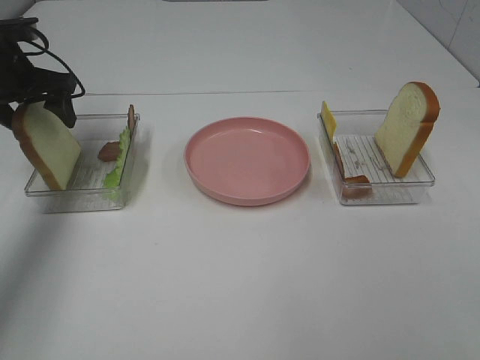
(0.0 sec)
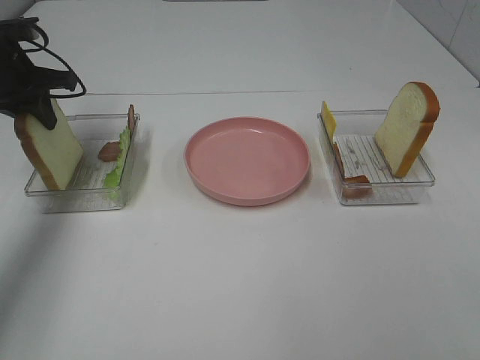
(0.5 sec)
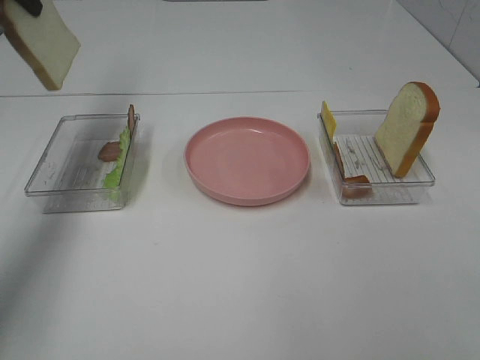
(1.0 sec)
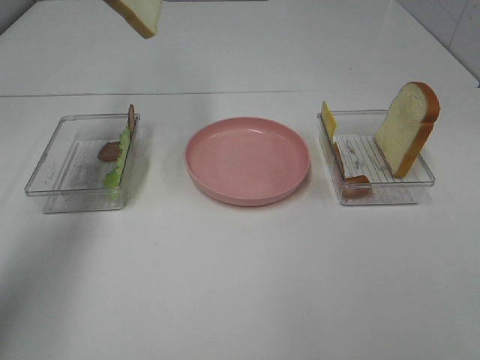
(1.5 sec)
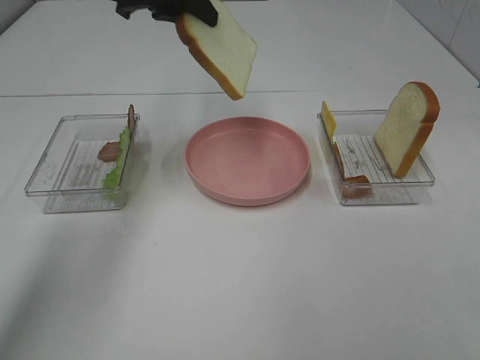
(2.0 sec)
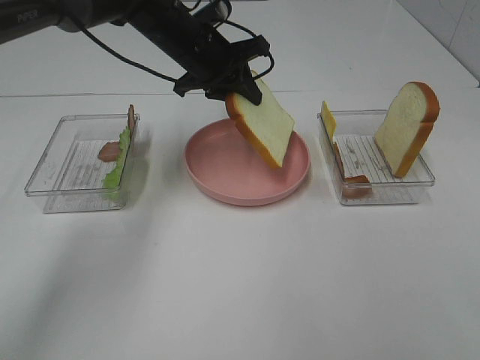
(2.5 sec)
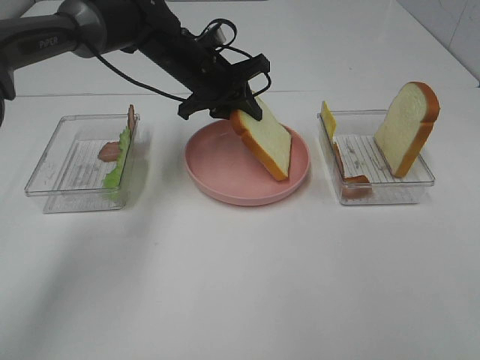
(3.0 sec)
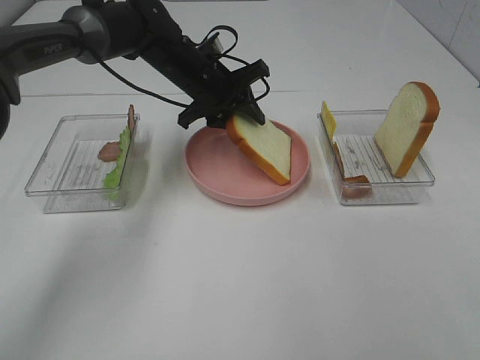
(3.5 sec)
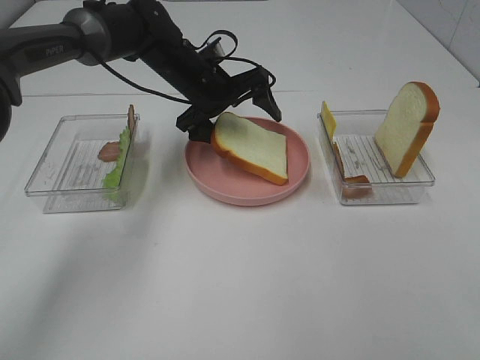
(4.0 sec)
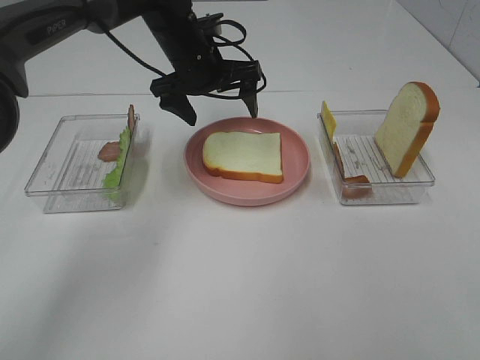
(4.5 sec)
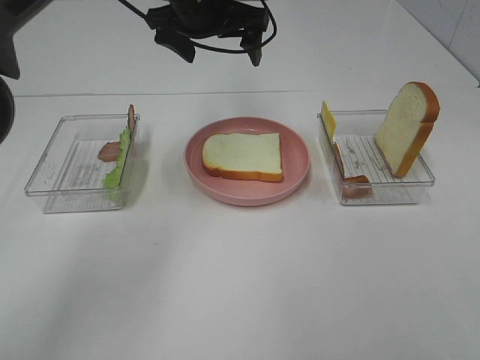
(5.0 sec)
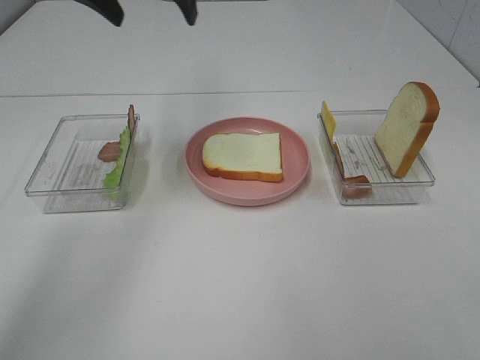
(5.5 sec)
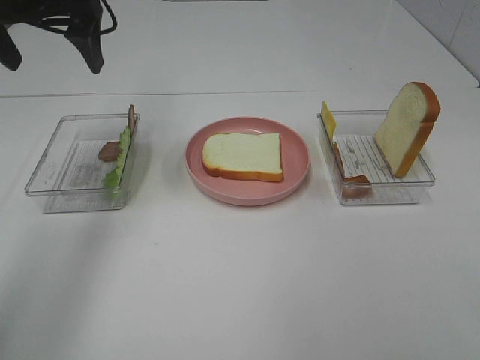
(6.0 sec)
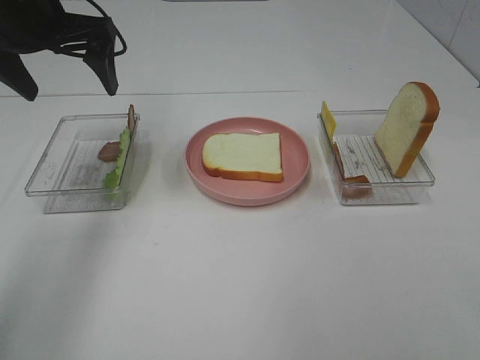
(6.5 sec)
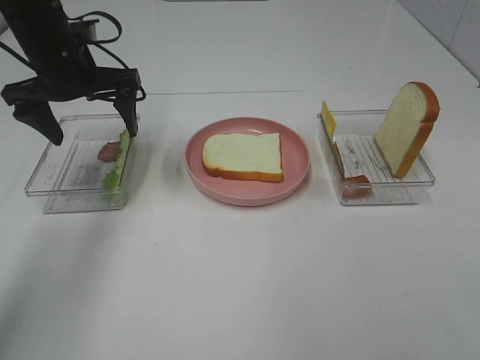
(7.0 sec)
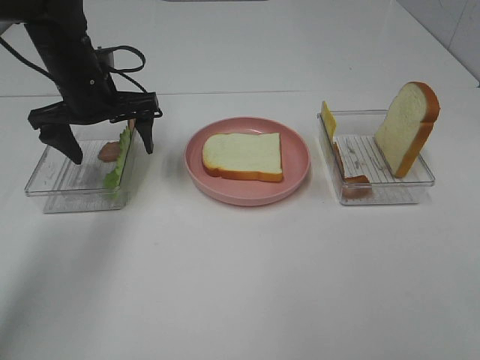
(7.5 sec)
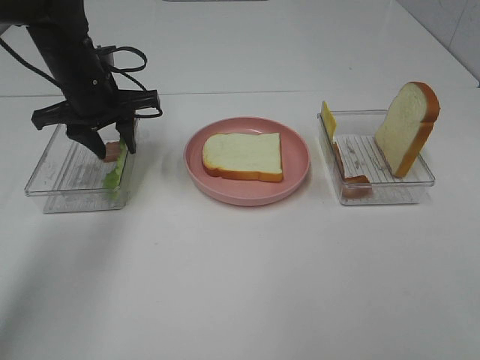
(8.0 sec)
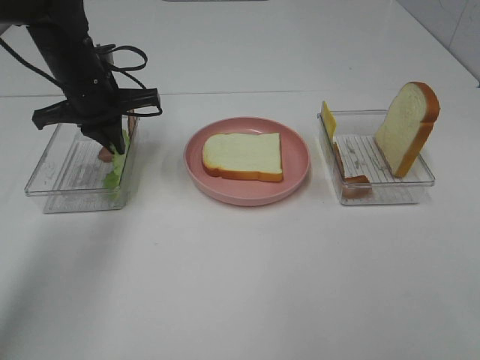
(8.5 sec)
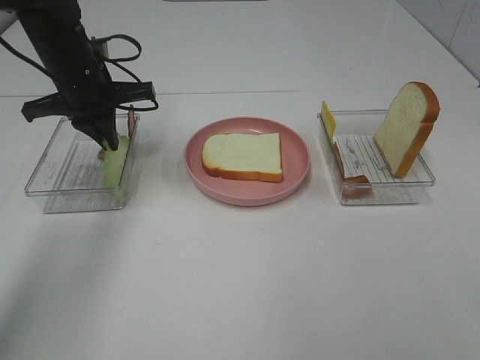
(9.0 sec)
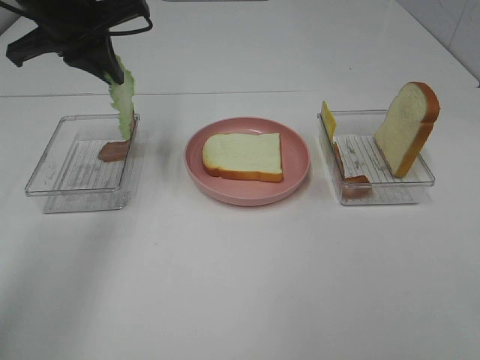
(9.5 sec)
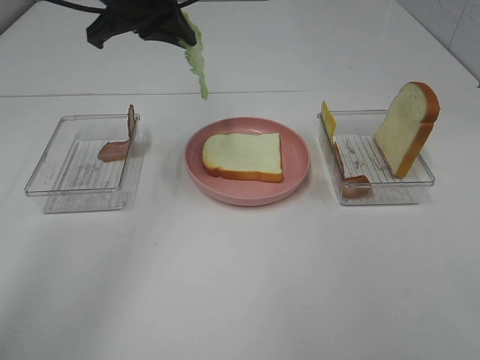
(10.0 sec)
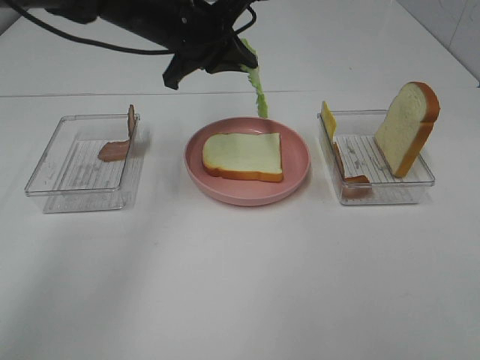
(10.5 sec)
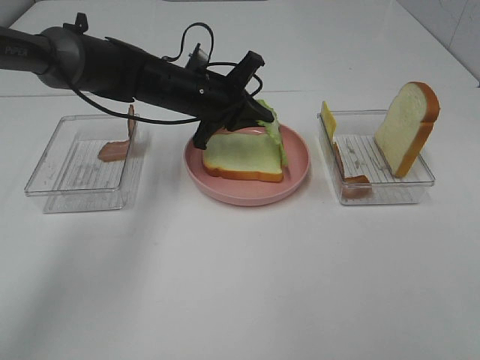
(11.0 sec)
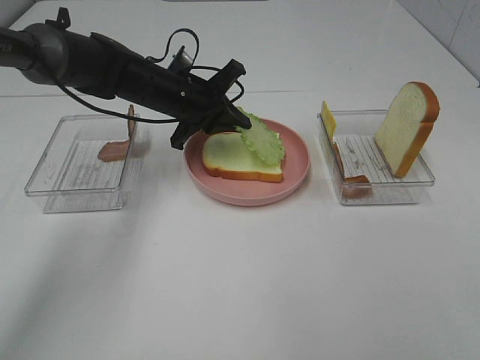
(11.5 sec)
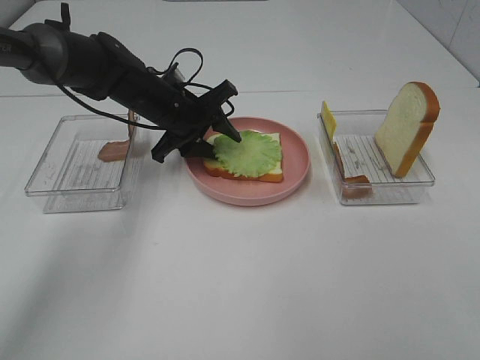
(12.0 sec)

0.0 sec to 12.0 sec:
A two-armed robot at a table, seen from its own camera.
Task of the whole recording: Make sandwiches.
Step, 1.0 sec to 4.0 sec: Left hand:place the bread slice on the plate.
Step, 4.5 sec to 9.0 sec: Left hand:grab the lettuce slice.
0.0 sec to 2.0 sec: The left gripper is displaced to the right and upward by approximately 20 cm, and closes up.
2.0 sec to 4.0 sec: The left gripper is displaced downward by about 15 cm, and opens.
4.0 sec to 6.0 sec: The left gripper is displaced upward, to the left and backward by approximately 25 cm.
6.0 sec to 8.0 sec: The left gripper is displaced downward by about 15 cm, and closes up.
8.0 sec to 10.0 sec: The left gripper goes roughly 15 cm upward and to the right, and closes.
10.0 sec to 12.0 sec: The left gripper travels downward by about 20 cm, and opens.

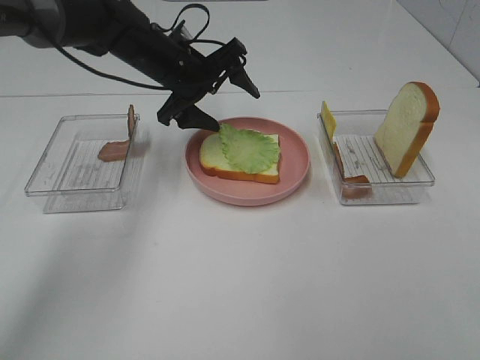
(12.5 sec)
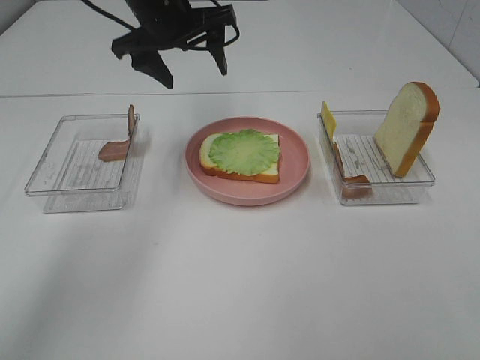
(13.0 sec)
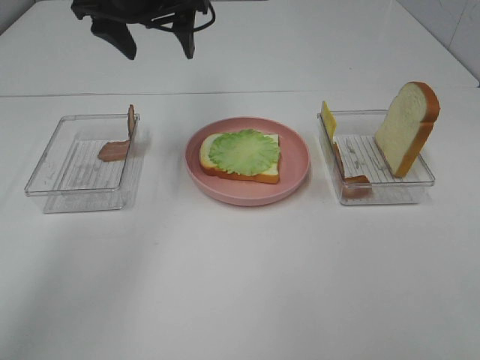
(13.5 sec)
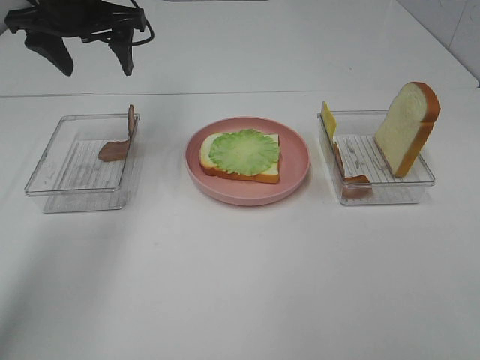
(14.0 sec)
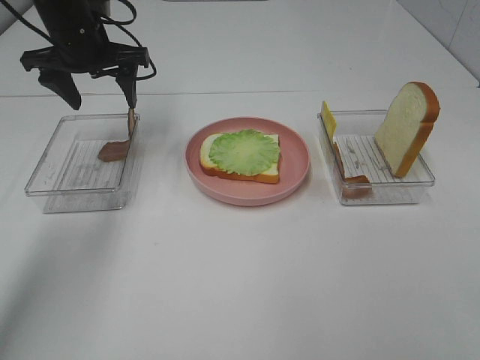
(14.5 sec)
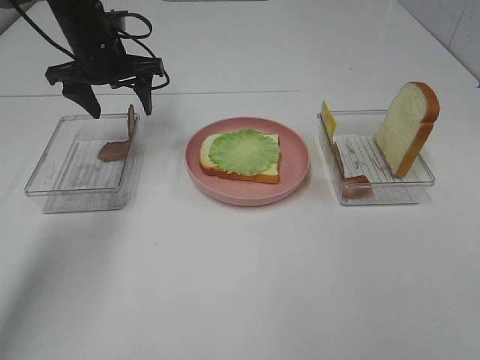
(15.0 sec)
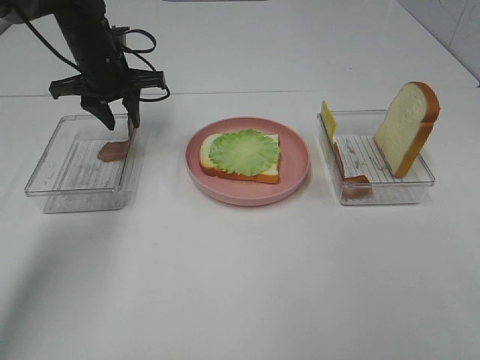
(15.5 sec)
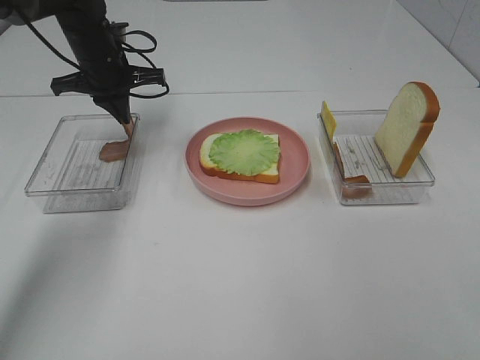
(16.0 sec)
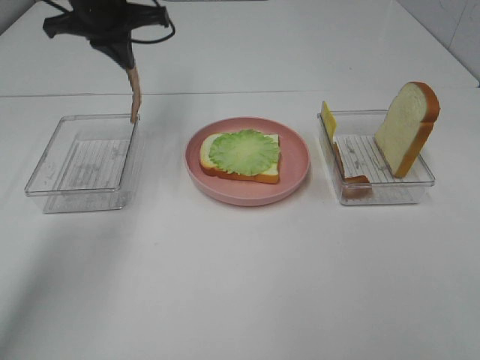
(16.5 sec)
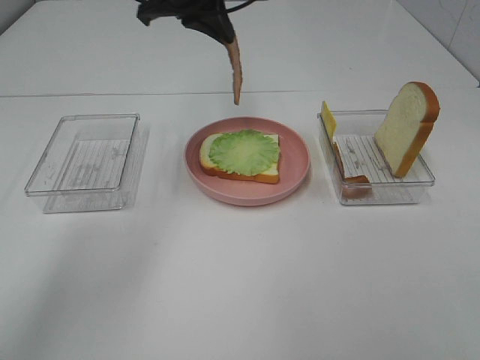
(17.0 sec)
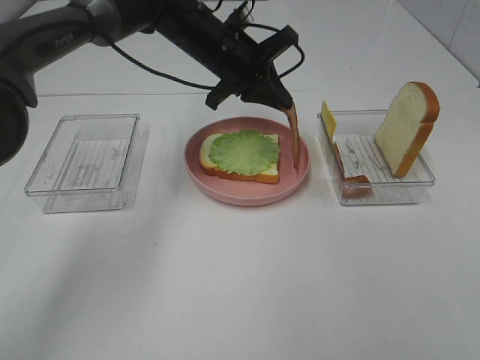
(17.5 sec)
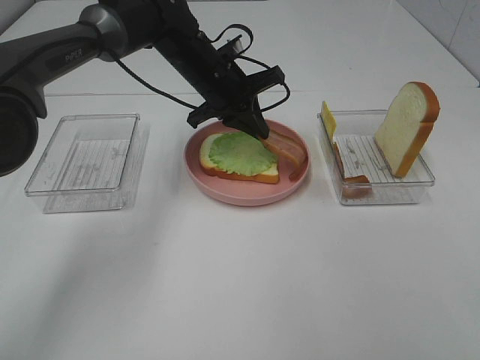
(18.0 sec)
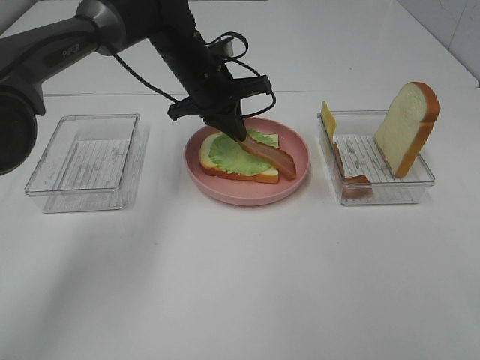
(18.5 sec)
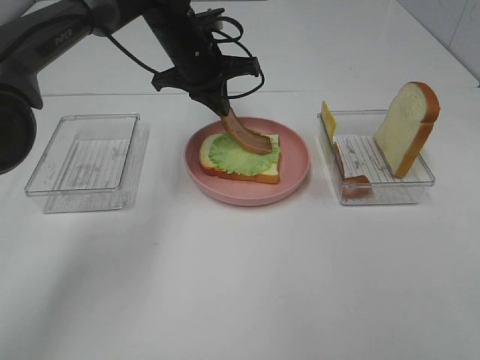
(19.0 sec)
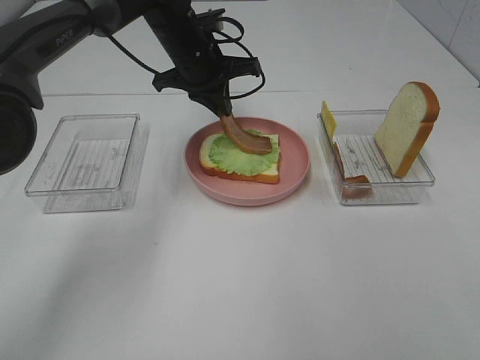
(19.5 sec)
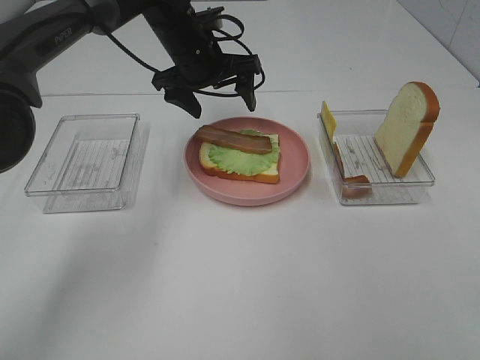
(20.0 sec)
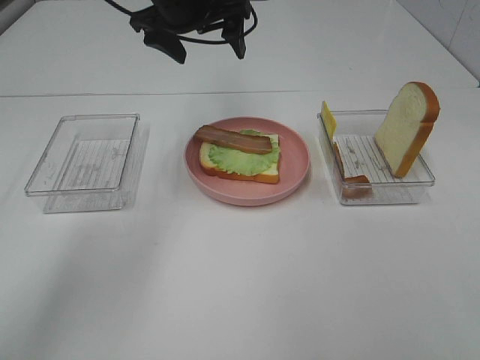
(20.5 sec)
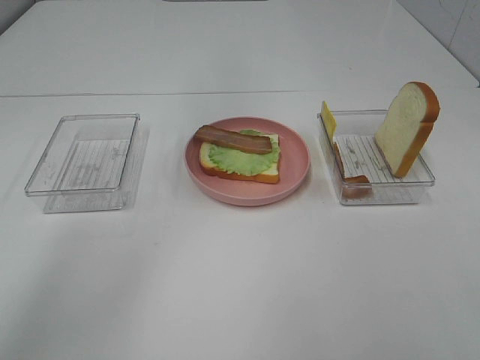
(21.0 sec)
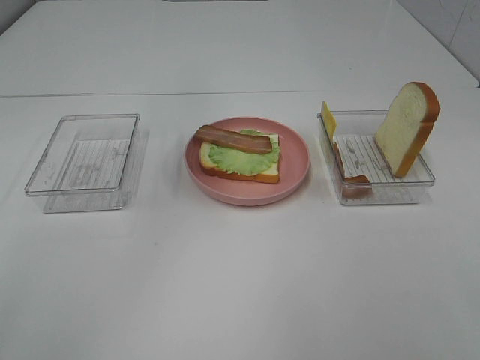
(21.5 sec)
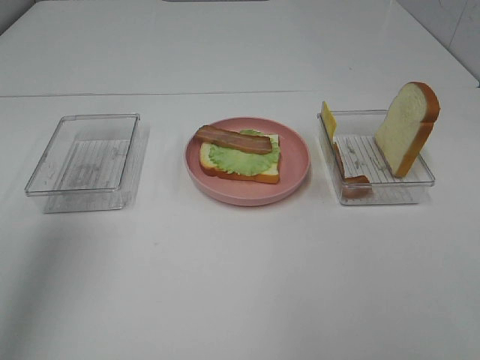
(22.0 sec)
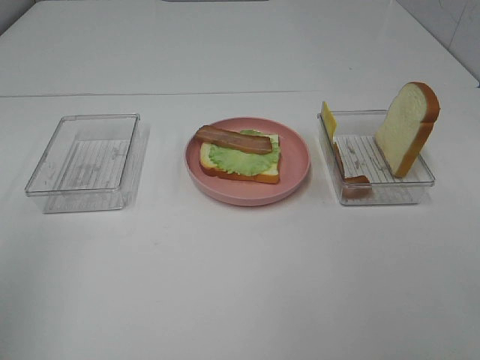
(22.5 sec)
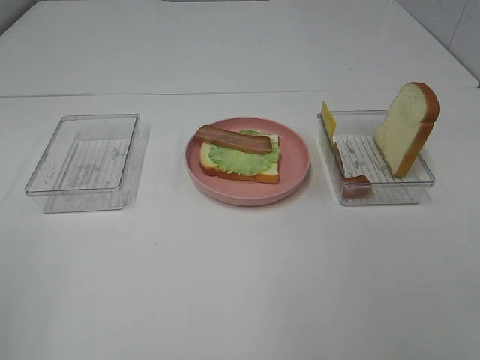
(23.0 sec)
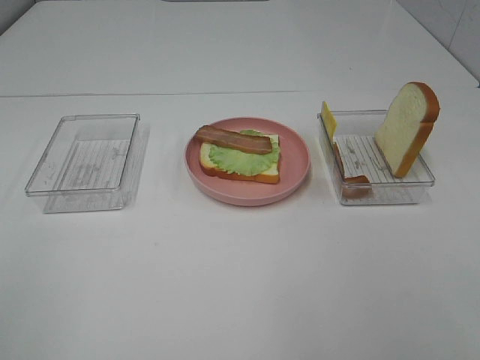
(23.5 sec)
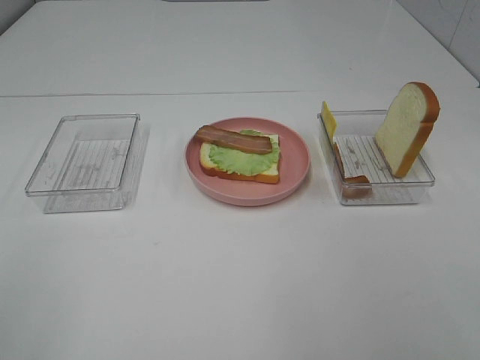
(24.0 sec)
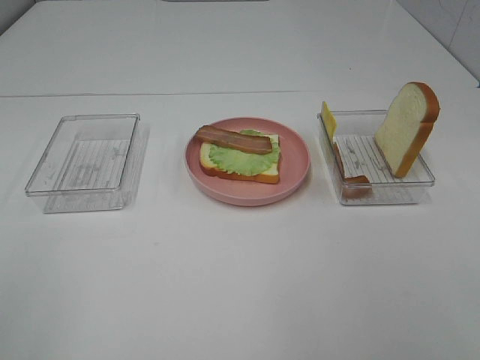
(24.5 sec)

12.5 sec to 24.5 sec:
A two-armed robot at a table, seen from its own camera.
Task of the whole recording: Make sandwiches.
Step, 13.0 sec to 16.0 sec: Left hand:grab the bacon.
Step, 16.5 sec to 19.5 sec: Left hand:place bacon on lettuce slice.
12.5 sec to 14.5 sec: The left gripper moves to the left, roughly 10 cm.
14.5 sec to 16.5 sec: The left gripper ends up about 5 cm from where it was, and closes its fingers.
16.5 sec to 18.5 sec: The left gripper moves to the right and downward, about 15 cm.
18.5 sec to 20.5 sec: The left gripper shifts about 10 cm upward, and opens its fingers.
20.5 sec to 22.5 sec: The left gripper goes some 50 cm backward and to the left.

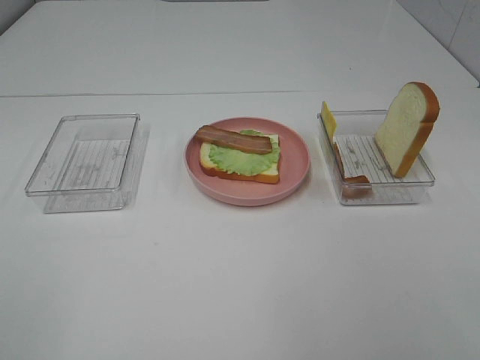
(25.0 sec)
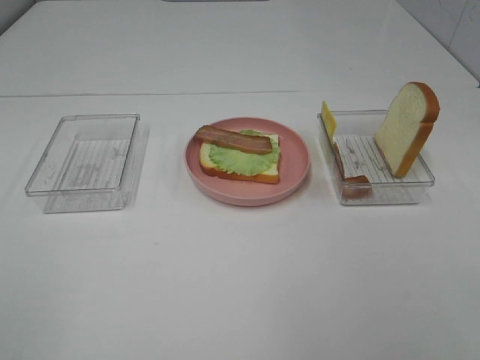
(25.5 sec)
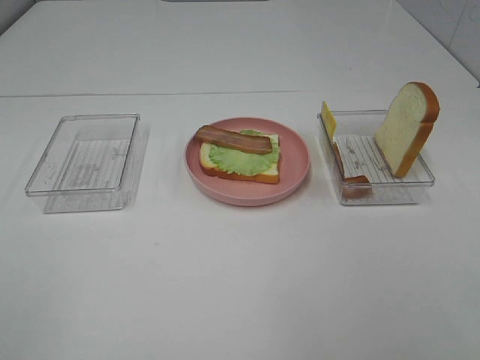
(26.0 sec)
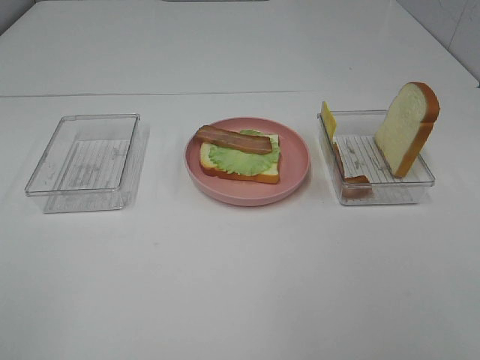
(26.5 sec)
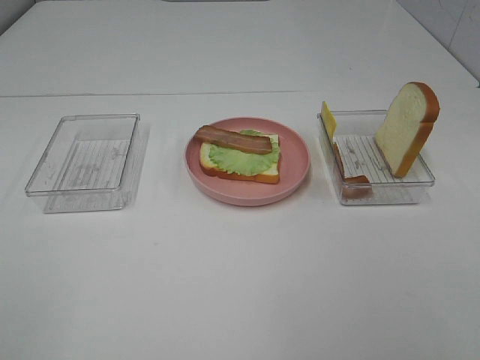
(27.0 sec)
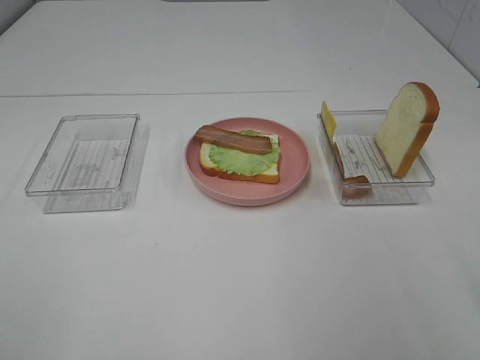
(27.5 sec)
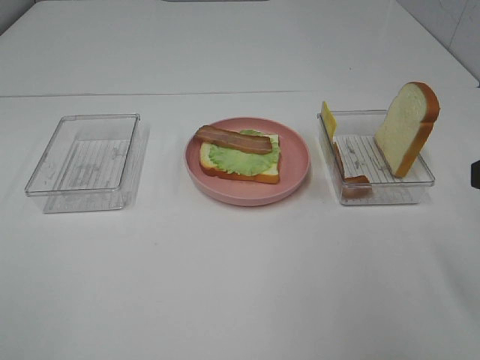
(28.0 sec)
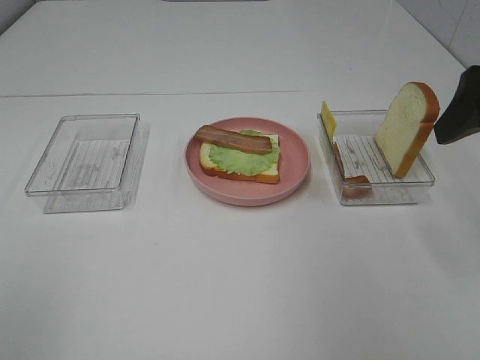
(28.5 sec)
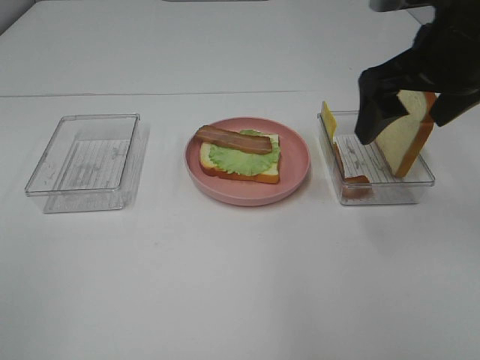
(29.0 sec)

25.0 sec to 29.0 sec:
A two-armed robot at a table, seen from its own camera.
Task of the whole recording: Make sandwiches.
27.0 sec to 29.0 sec: The right gripper is displaced forward by roughly 30 cm.
